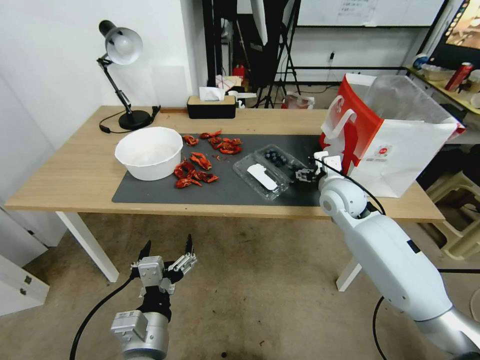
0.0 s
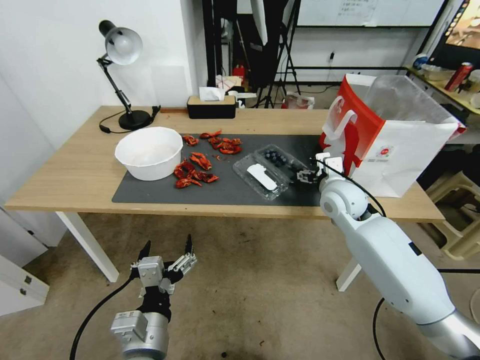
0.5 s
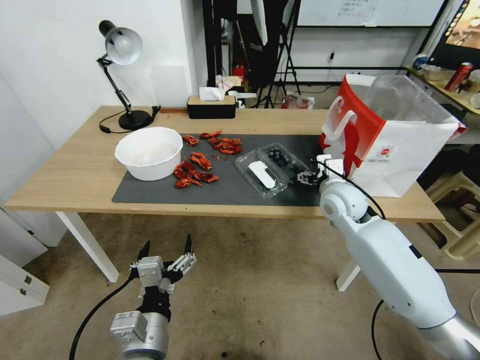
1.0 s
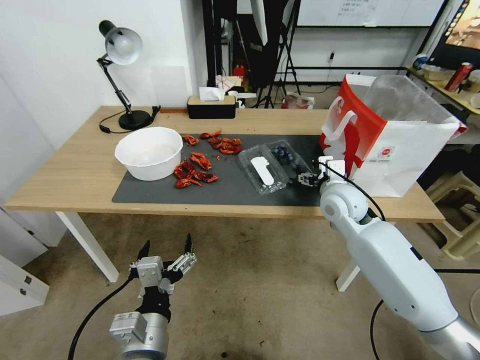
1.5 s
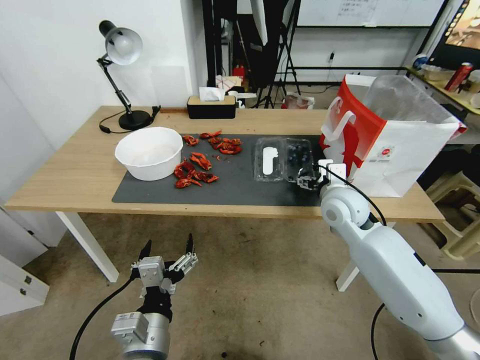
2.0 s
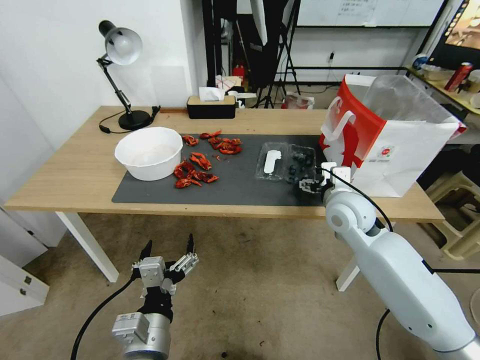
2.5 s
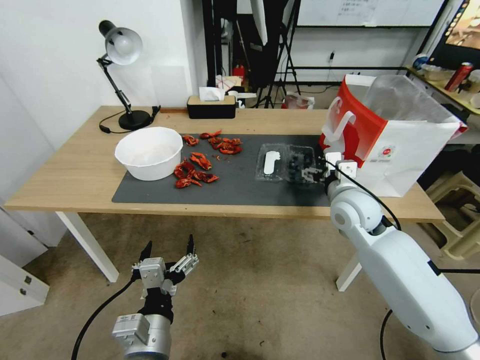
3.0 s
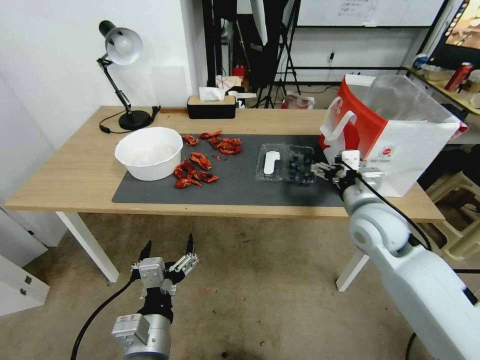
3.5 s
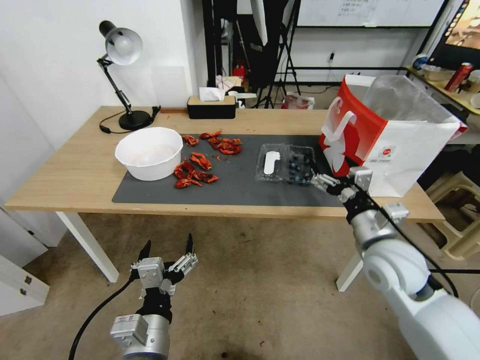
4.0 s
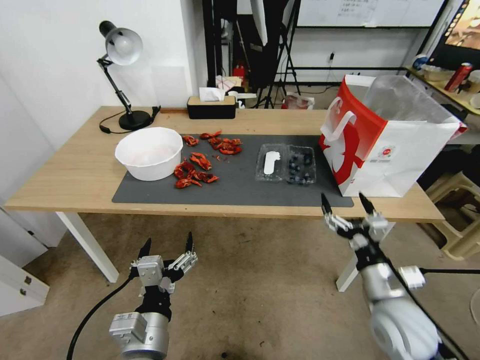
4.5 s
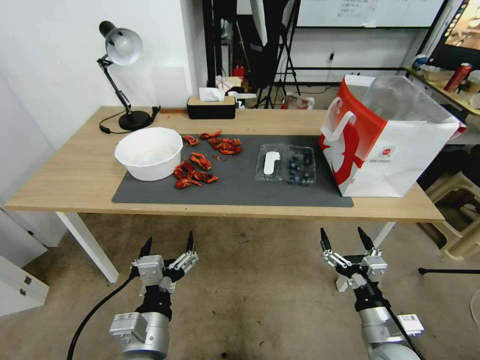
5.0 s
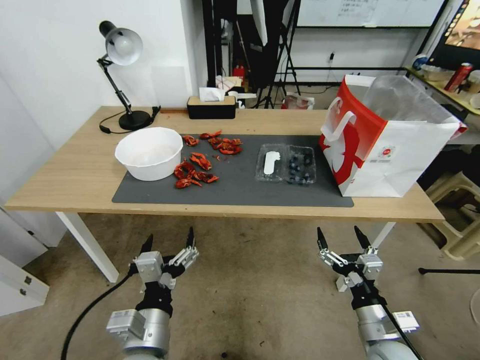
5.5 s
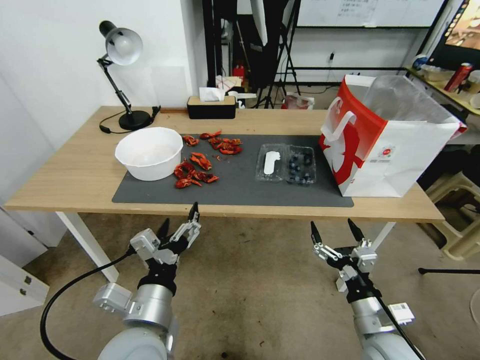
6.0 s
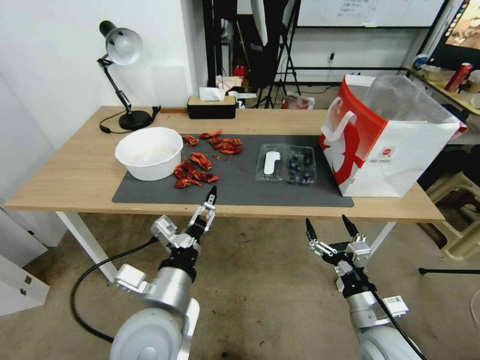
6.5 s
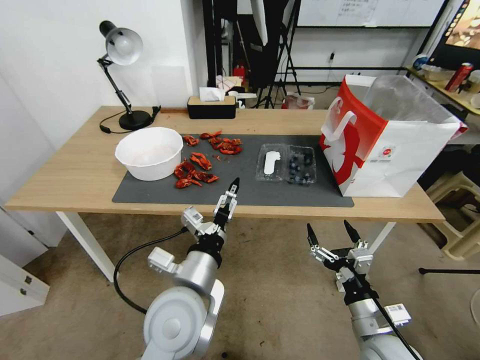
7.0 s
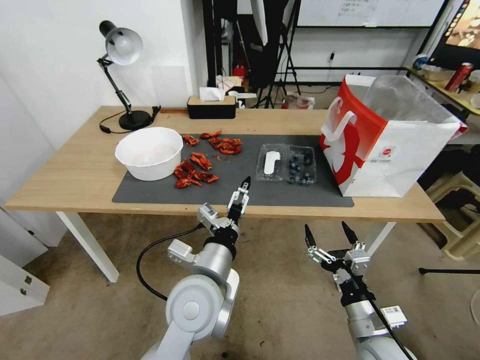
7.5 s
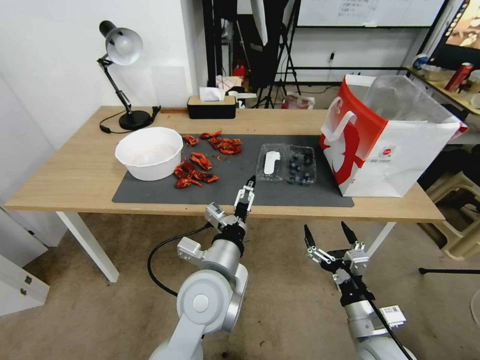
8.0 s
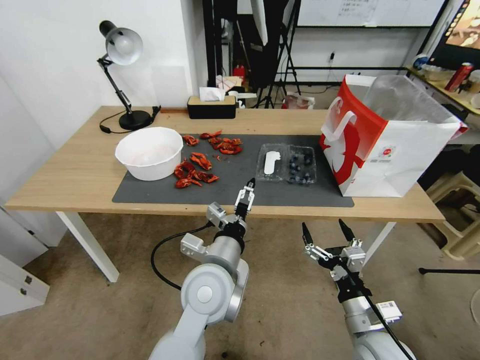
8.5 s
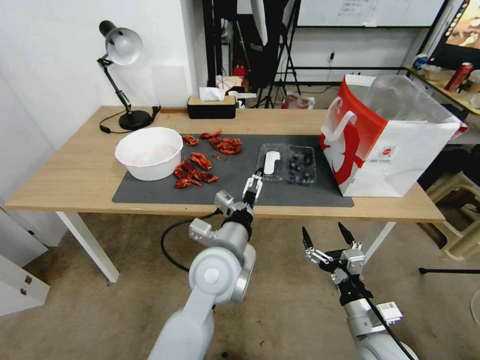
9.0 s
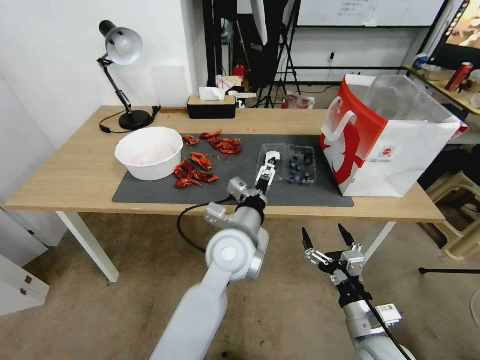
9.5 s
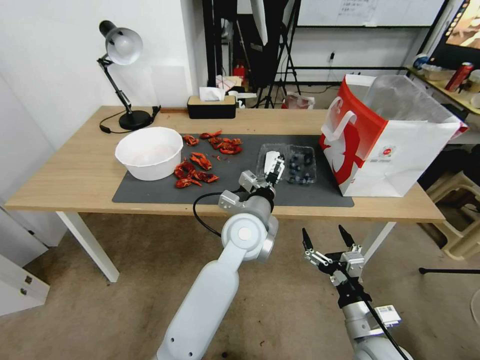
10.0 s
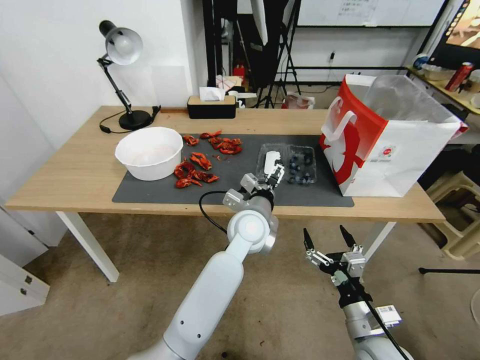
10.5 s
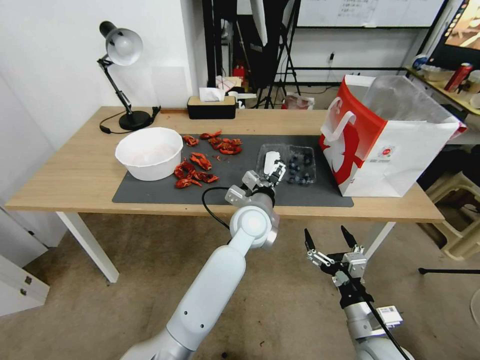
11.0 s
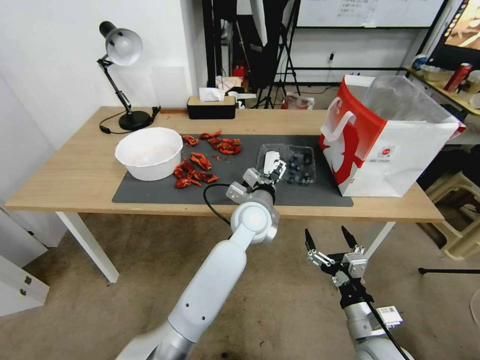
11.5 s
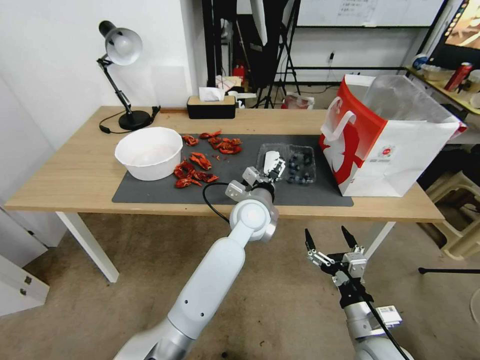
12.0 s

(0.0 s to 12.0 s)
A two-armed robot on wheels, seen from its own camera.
Task of the whole recording: Close the takeout container lid, then place the container into the takeout bag.
0.0 s - 2.0 s: The grippers make only small movements.
2.0 s - 4.0 s: The right gripper goes some 15 cm backward and to the right.
4.0 s - 6.0 s: The left gripper moves some 5 cm. The right gripper is displaced backward and downward by approximately 15 cm.
6.0 s - 8.0 s: The left gripper shifts roughly 15 cm to the right and forward.
8.0 s - 10.0 s: The left gripper goes about 15 cm forward and to the right.
10.0 s - 12.0 s: The left gripper goes roughly 5 cm forward.

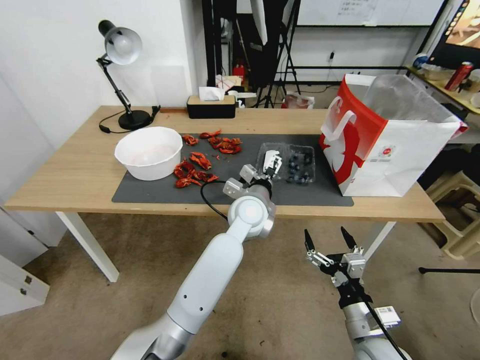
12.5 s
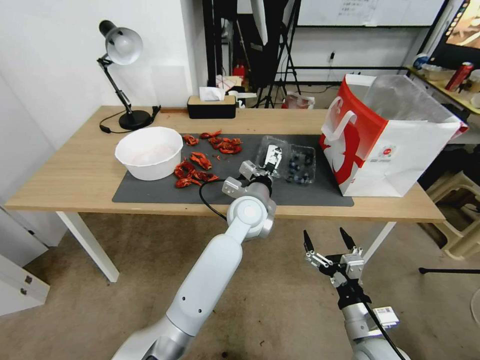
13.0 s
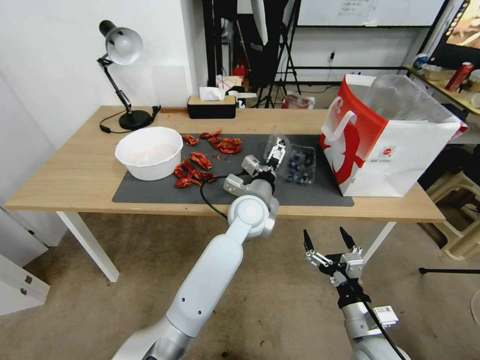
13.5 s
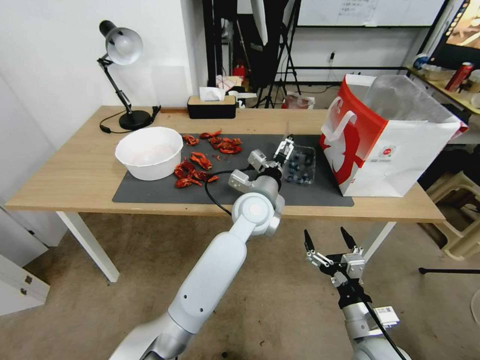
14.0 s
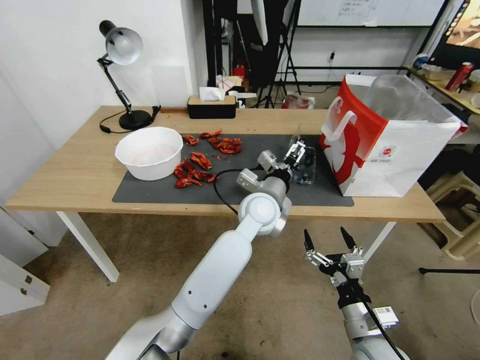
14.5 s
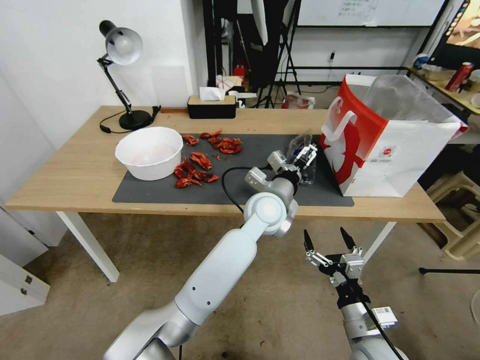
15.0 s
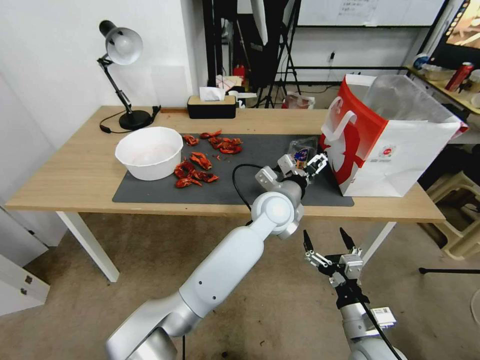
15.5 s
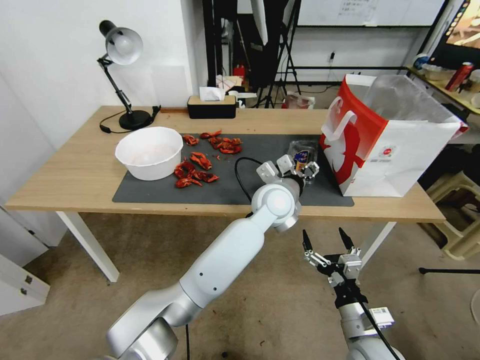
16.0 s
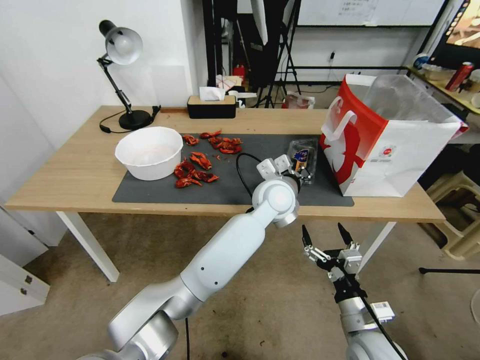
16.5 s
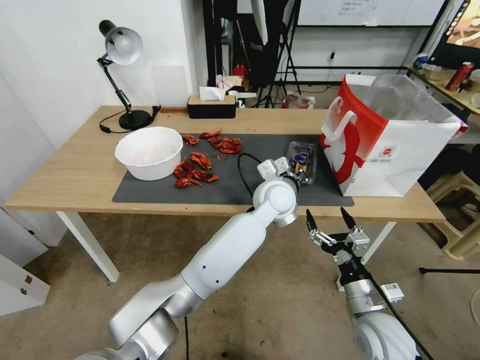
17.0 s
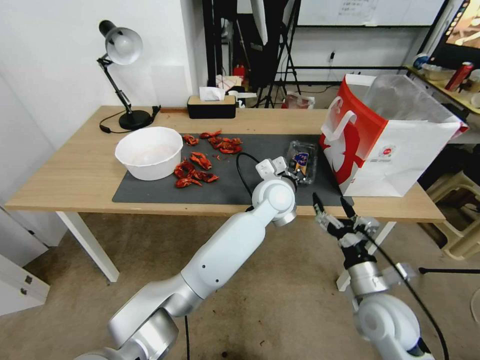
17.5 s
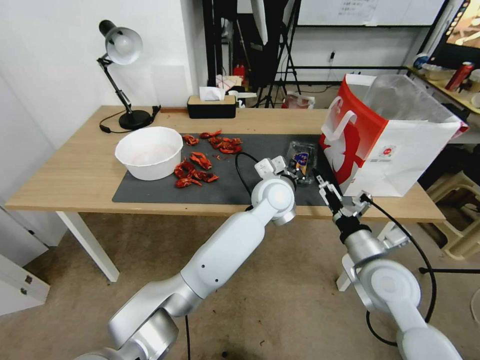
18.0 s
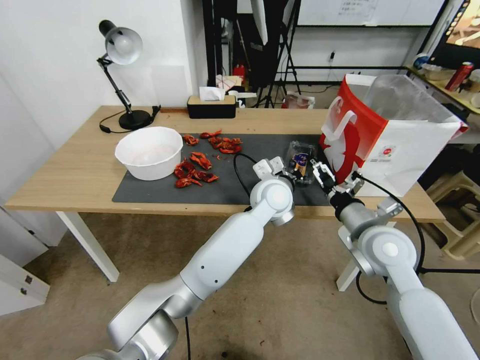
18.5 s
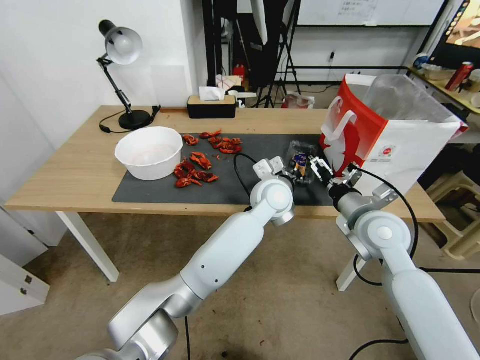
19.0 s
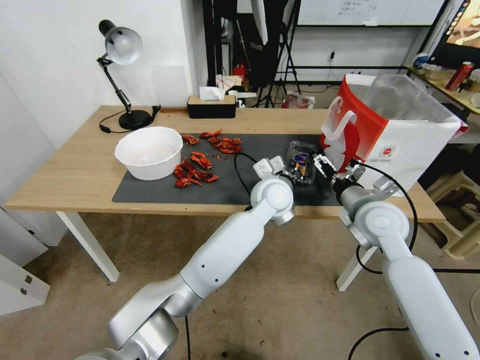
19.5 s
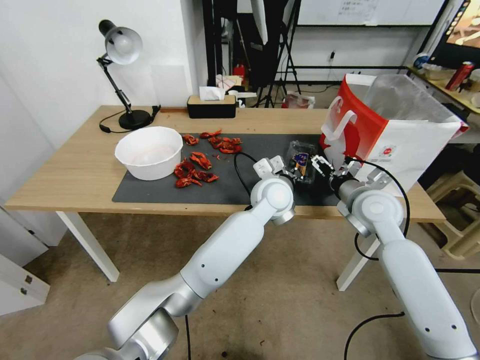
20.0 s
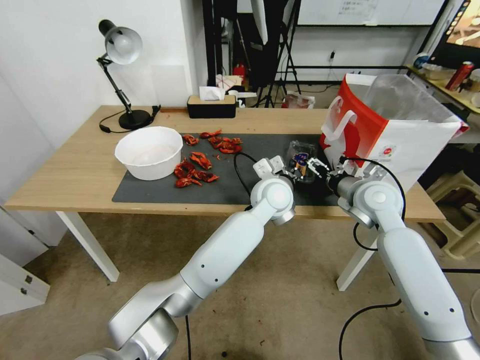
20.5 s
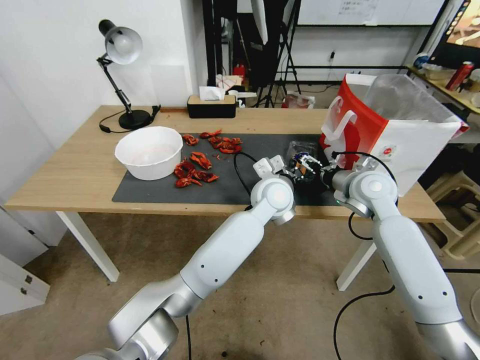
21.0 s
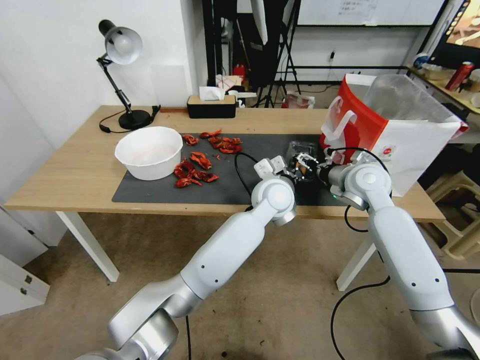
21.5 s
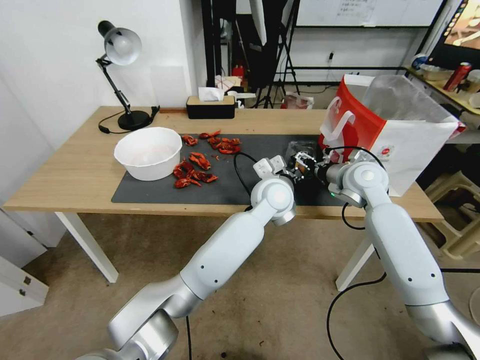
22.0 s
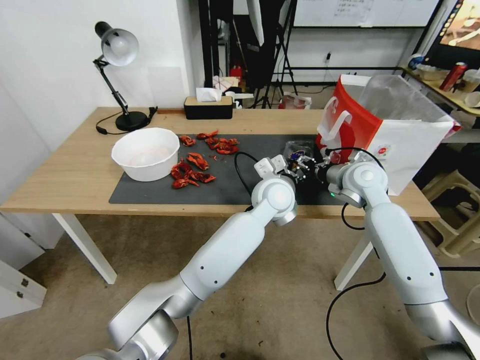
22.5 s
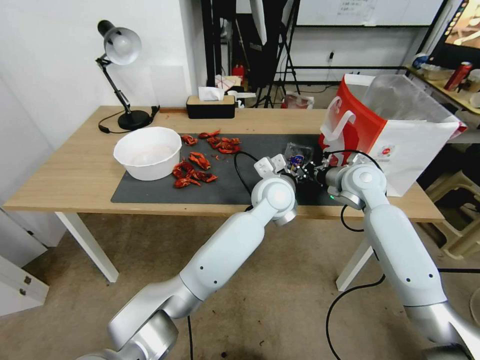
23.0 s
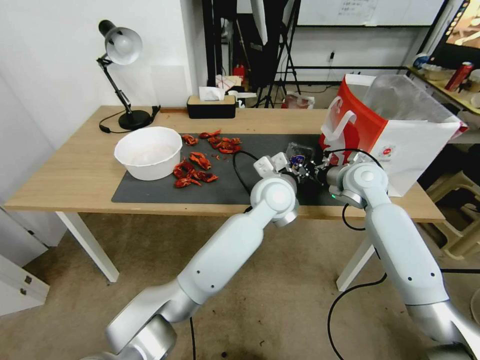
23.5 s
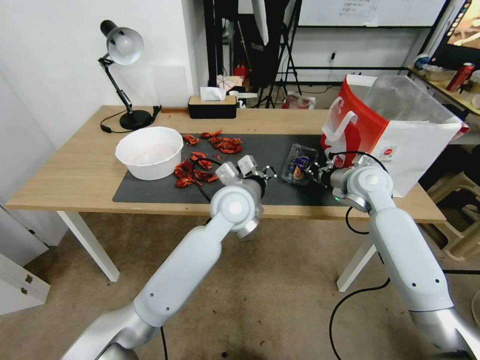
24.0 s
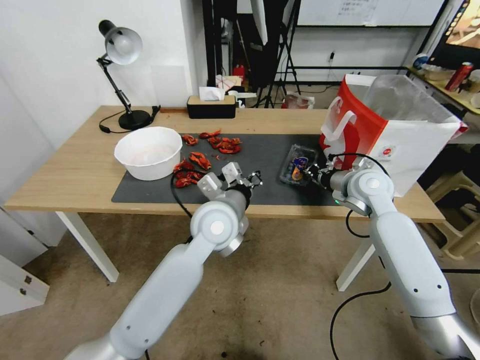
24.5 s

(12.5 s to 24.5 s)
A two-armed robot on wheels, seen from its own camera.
Task of the whole recording: Close the takeout container lid, then place the container into the takeout bag.
12.5 s - 14.5 s: The grippers stay close to where they were, moving slightly.
14.5 s - 16.5 s: The left gripper closes up.
16.5 s - 18.5 s: The right gripper moves forward and upward, roughly 20 cm.
18.5 s - 20.5 s: The right gripper is displaced forward by approximately 10 cm.
20.5 s - 22.5 s: The right gripper is displaced forward by some 5 cm, and closes its fingers.
22.5 s - 24.5 s: The left gripper shifts about 15 cm to the left and backward. Meanwhile the right gripper closes up.

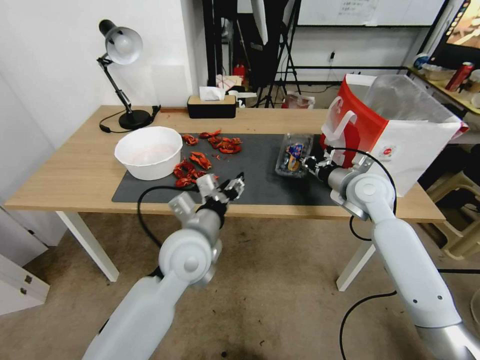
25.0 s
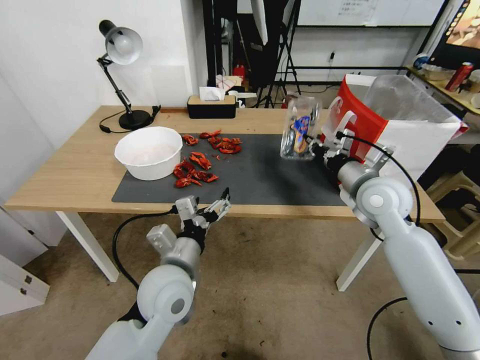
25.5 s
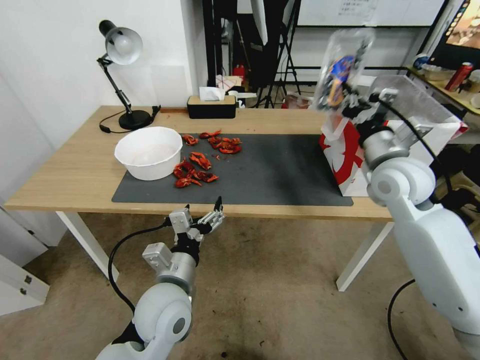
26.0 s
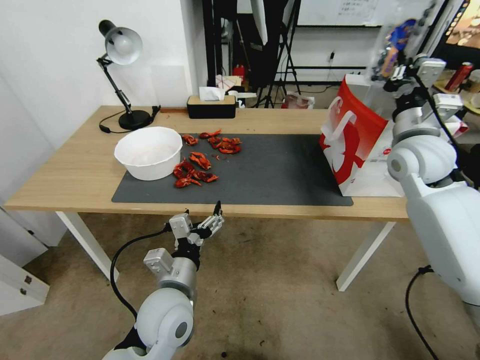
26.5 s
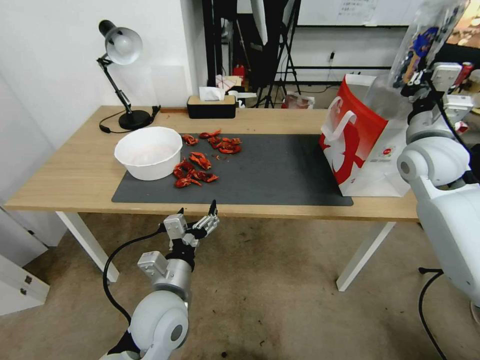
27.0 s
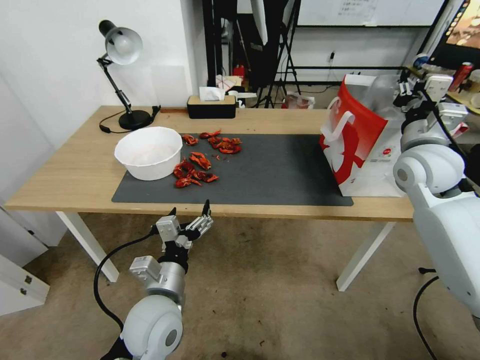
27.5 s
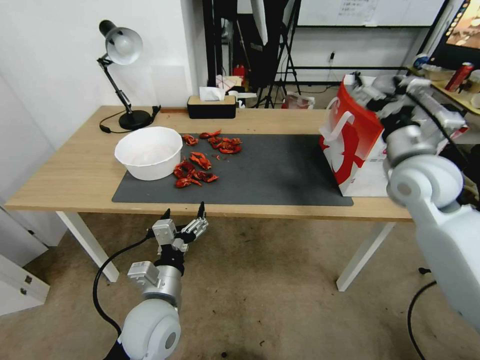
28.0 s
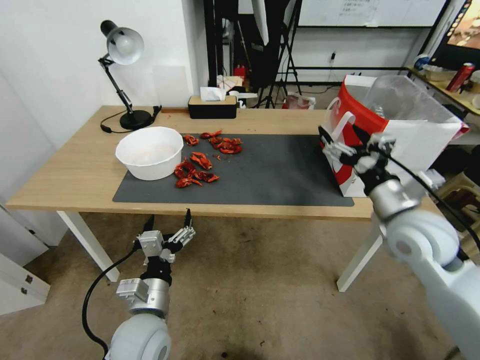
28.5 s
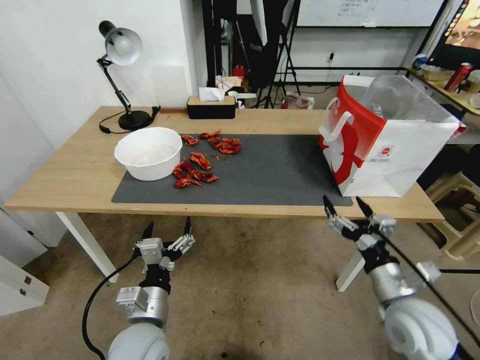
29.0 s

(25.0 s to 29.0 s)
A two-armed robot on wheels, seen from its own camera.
Task of the whole recording: Close the takeout container lid, then place the container into the takeout bag.
25.0 s - 27.0 s: The left gripper shifts about 10 cm backward and downward, and opens. The right gripper travels upward and to the right by some 10 cm.
27.0 s - 29.0 s: The right gripper goes approximately 30 cm backward and downward, and opens up. The left gripper shifts by some 5 cm.
